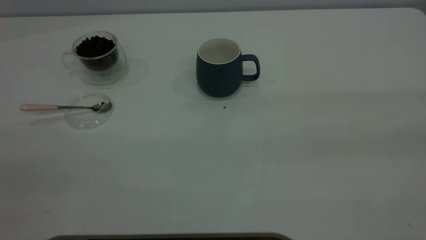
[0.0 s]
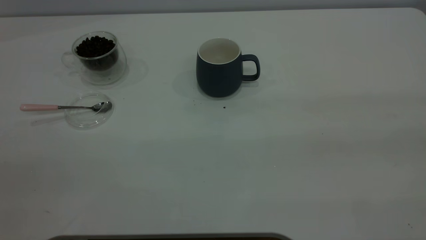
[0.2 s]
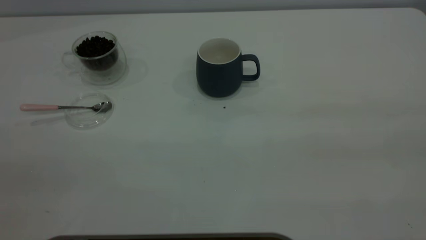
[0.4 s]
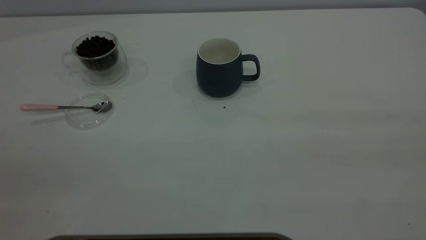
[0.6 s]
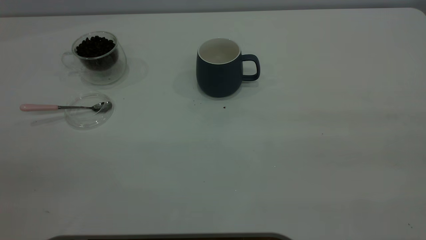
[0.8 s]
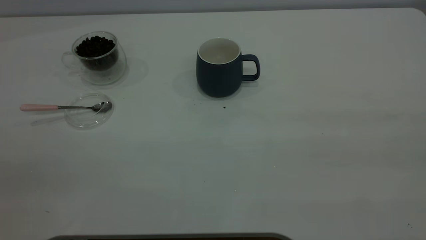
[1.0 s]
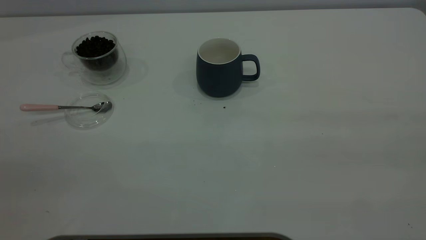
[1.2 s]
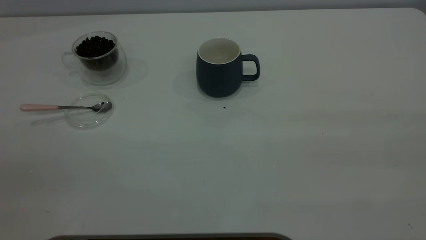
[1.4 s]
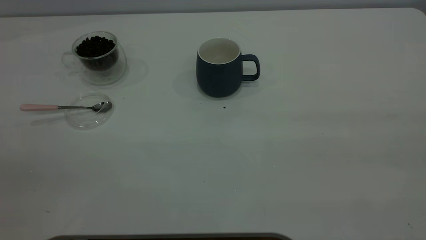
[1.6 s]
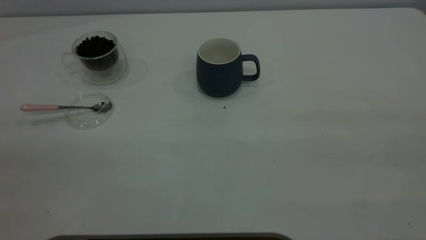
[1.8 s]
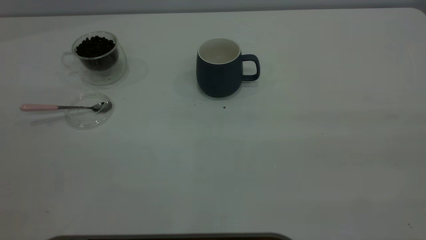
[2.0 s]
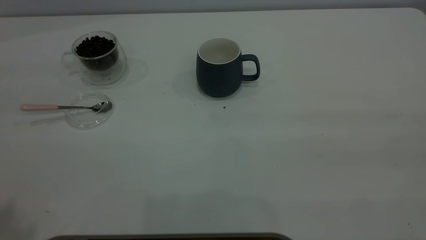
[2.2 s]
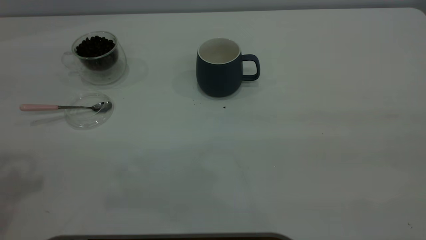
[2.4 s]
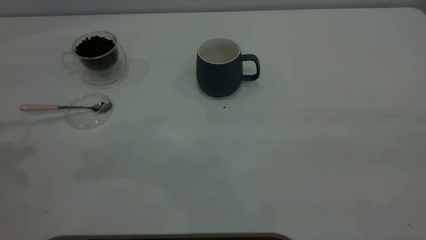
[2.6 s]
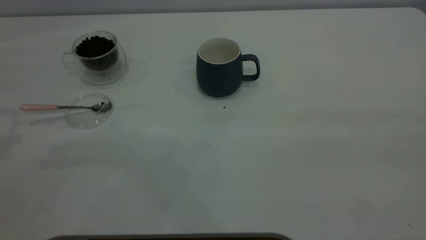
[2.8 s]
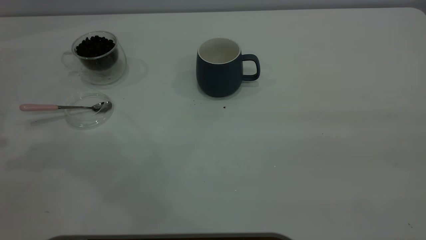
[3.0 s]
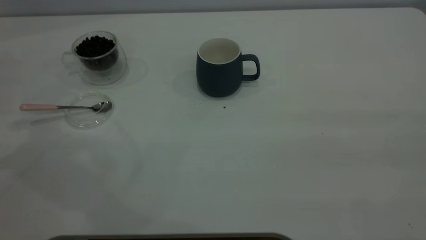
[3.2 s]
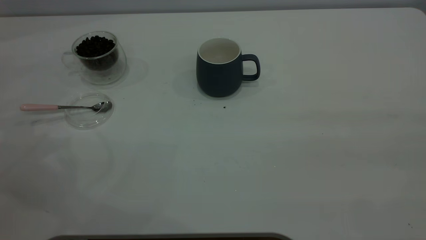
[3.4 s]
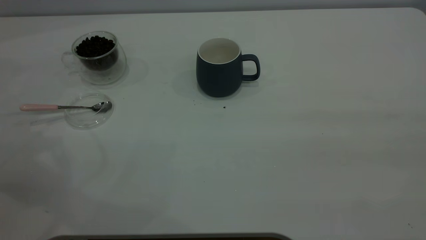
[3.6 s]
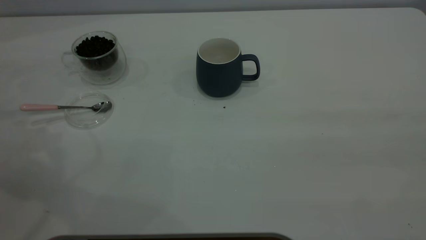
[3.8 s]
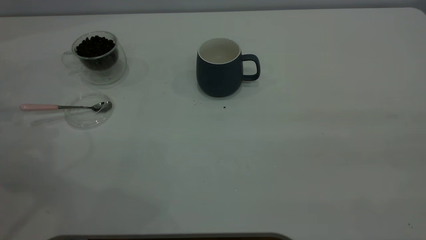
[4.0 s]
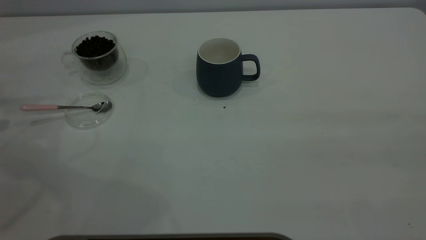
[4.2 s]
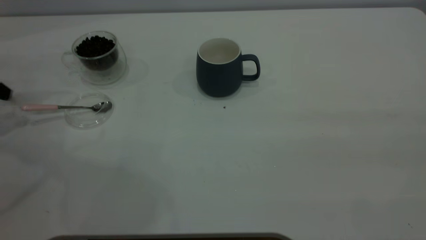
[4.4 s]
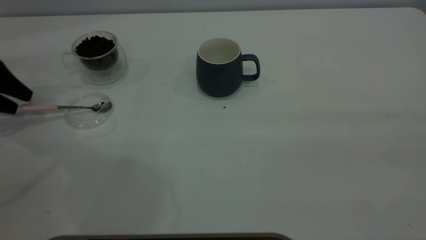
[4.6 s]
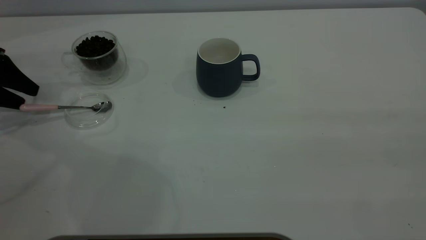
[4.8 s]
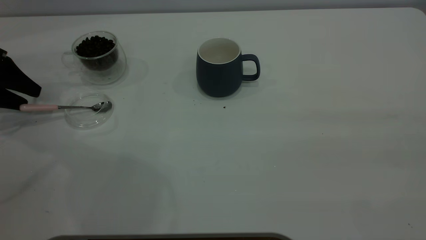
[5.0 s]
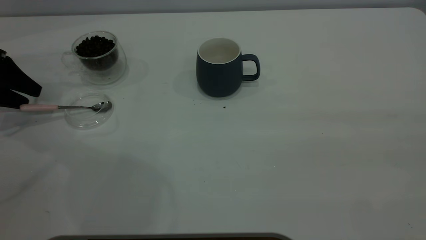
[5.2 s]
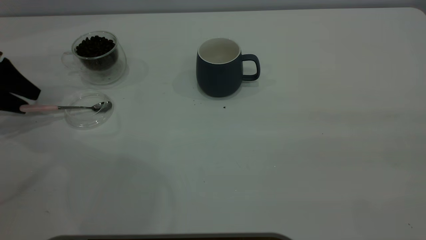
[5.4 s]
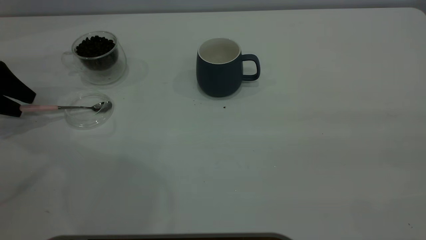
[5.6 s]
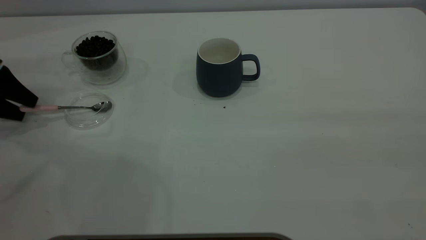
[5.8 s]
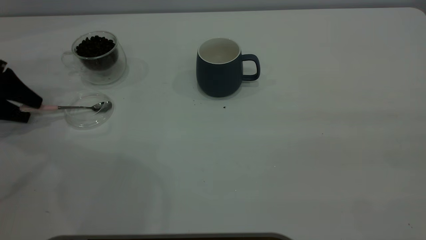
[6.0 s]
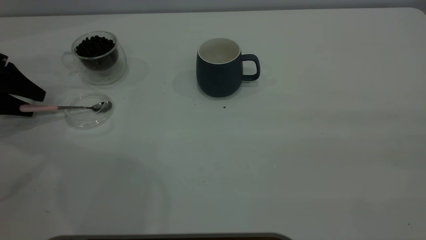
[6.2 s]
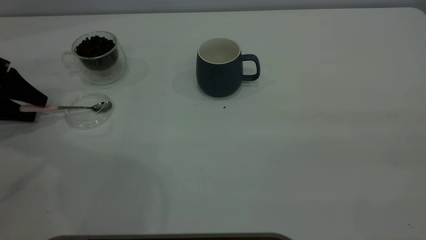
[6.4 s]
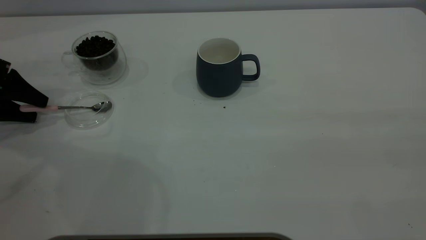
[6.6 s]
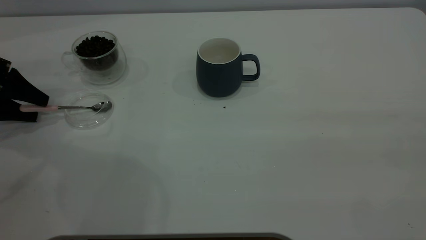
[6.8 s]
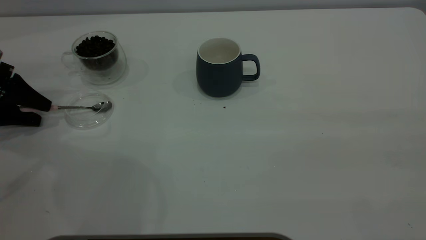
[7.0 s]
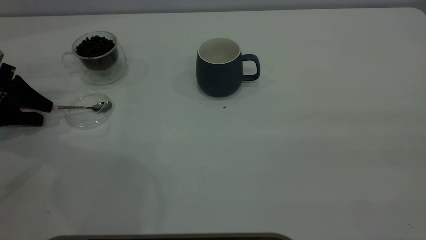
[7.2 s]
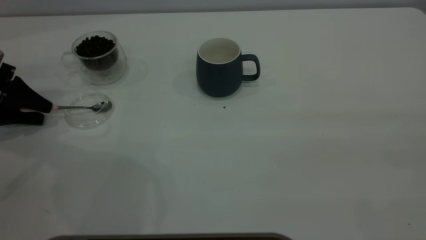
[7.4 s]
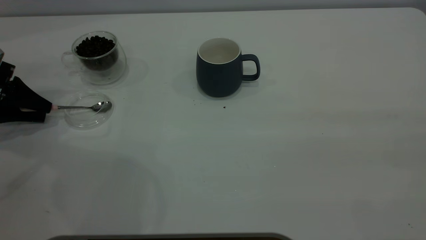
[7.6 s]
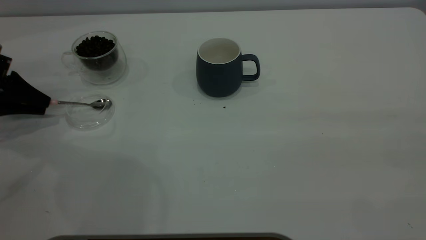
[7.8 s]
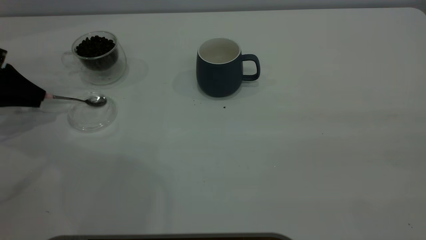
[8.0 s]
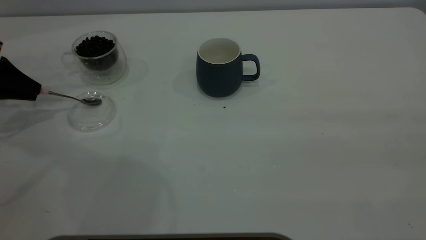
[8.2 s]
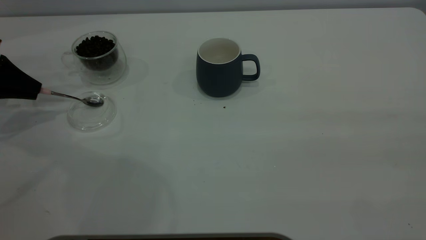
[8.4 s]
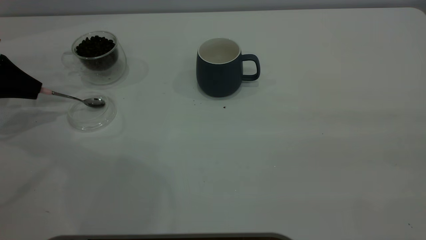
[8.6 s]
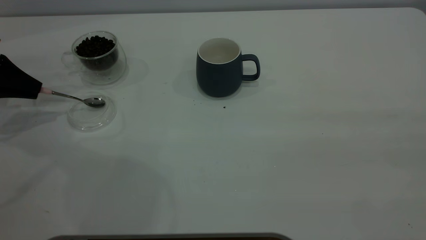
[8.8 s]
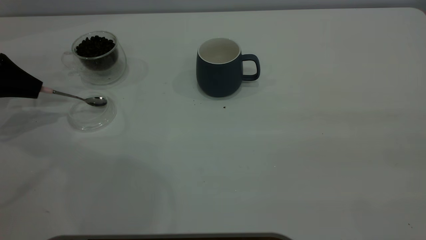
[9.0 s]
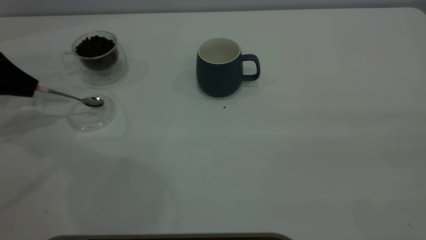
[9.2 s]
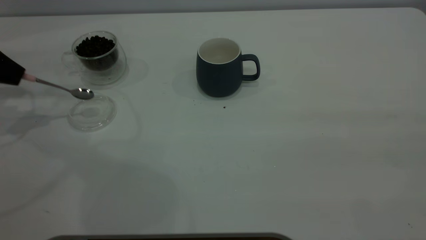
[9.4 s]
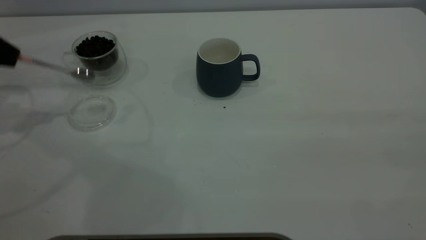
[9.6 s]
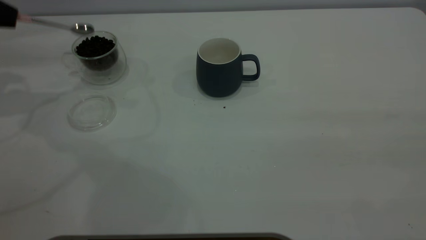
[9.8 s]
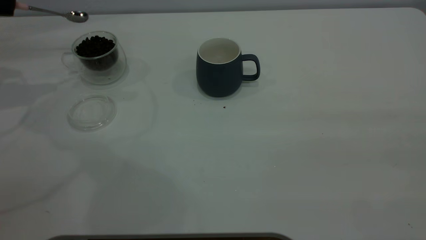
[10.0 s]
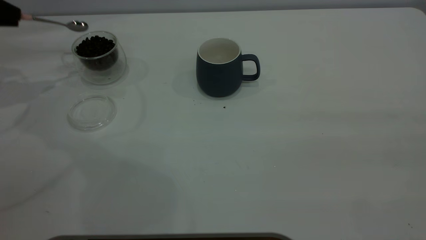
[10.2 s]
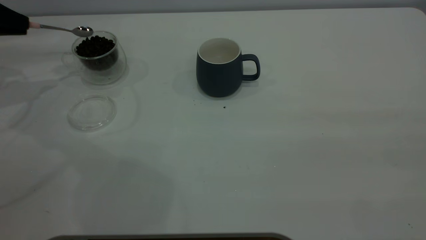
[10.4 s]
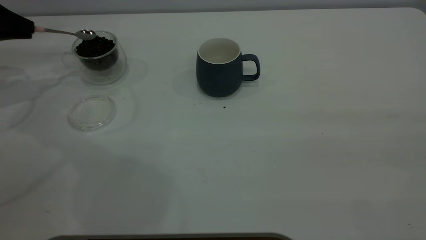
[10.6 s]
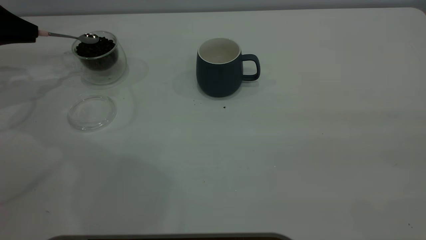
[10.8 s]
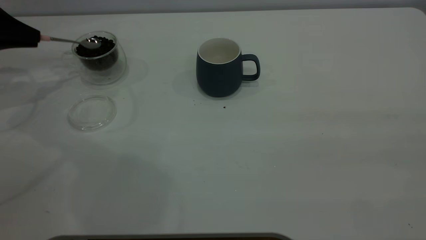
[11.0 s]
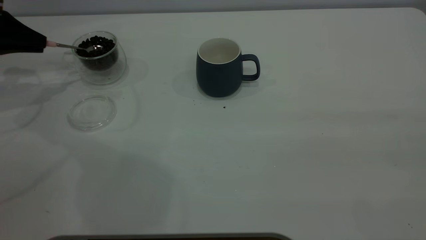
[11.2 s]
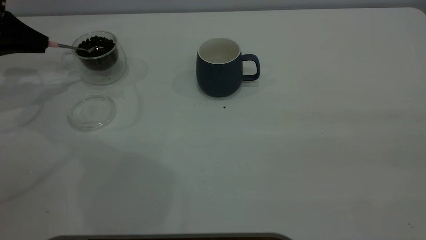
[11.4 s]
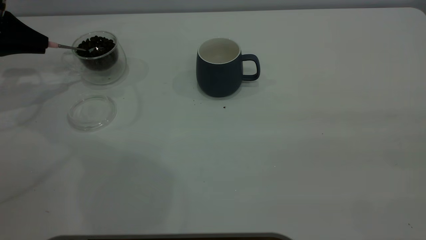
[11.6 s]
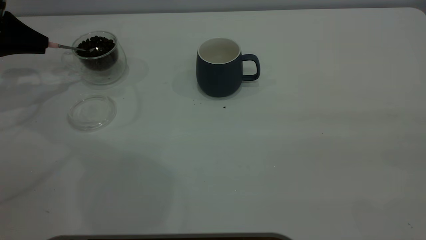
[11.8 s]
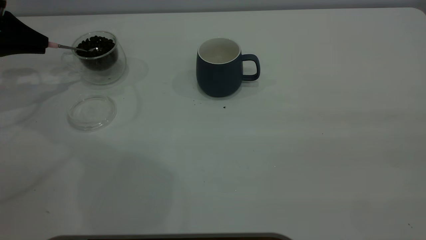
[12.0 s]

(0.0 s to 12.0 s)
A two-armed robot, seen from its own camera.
Task of the whole recording: the right gripper place the grey cup in the center of the table, the left gripper take the pink spoon from the cup lid and scoop out the coffee beans from the coffee cup and put them into the grey cup, the left gripper put the spoon back into the cup lid.
Step, 0.0 s - 9.4 s: Pick up the spoon.
4.4 s - 6.0 s: The grippers make only small movements.
6.0 s - 7.6 s: The left gripper closes up.
7.6 s - 9.0 s: The left gripper closes up.
9.0 s - 10.4 s: The left gripper travels upward by about 5 cm.
10.4 s - 12.0 s: There are only small adjustments of the grippers.

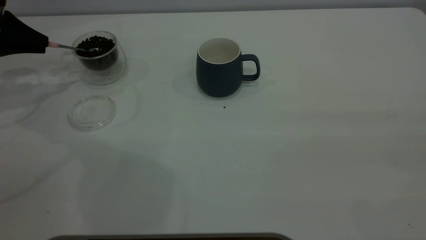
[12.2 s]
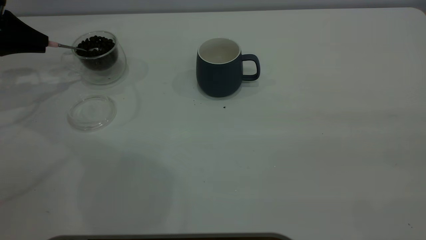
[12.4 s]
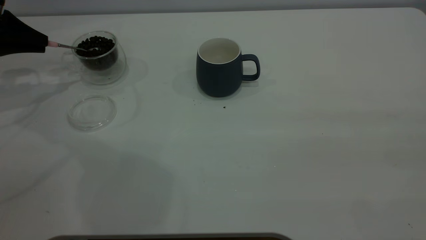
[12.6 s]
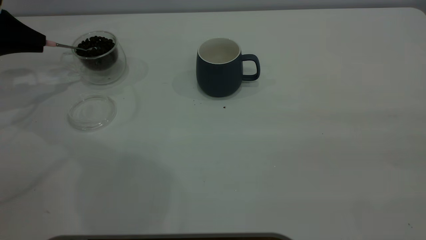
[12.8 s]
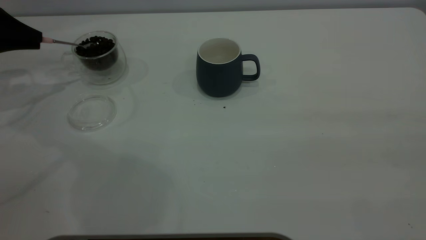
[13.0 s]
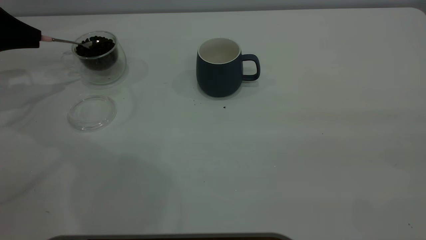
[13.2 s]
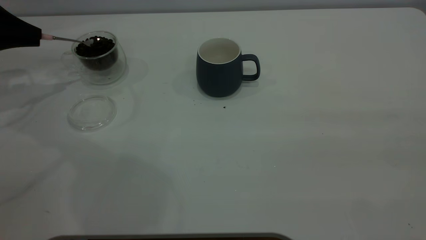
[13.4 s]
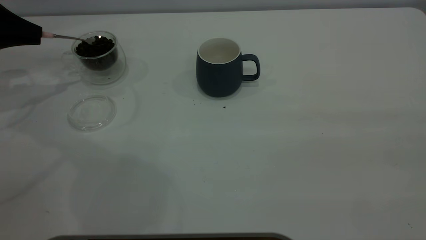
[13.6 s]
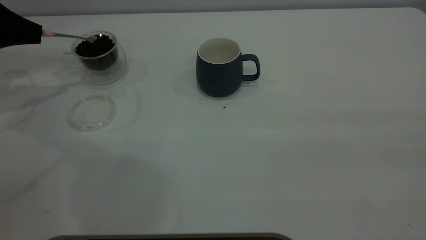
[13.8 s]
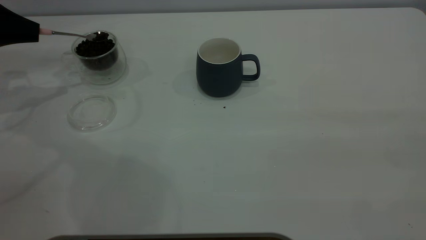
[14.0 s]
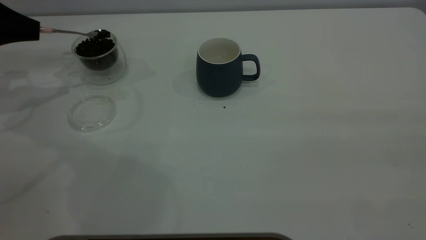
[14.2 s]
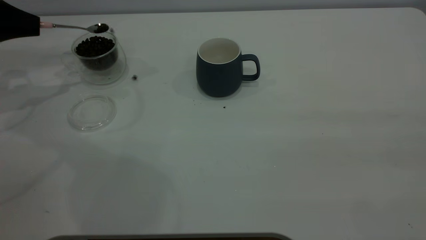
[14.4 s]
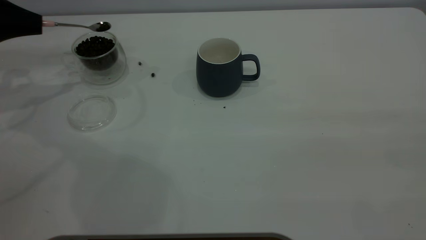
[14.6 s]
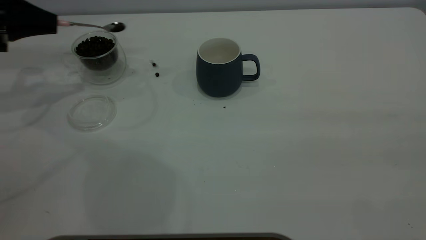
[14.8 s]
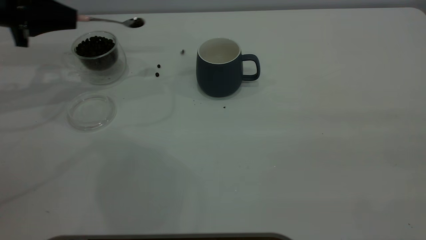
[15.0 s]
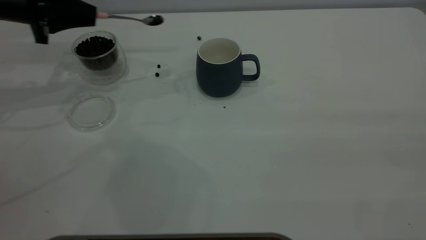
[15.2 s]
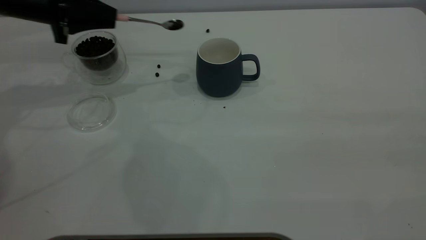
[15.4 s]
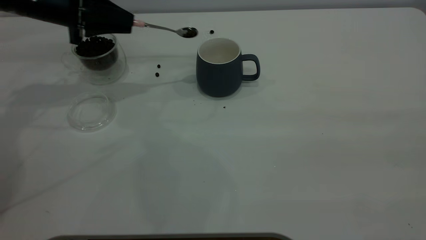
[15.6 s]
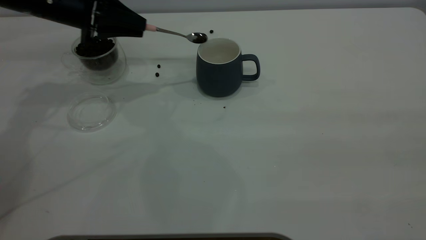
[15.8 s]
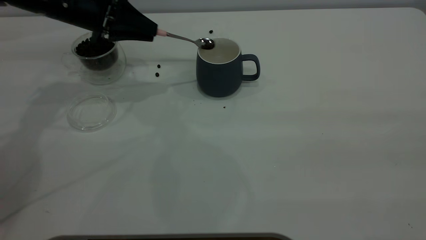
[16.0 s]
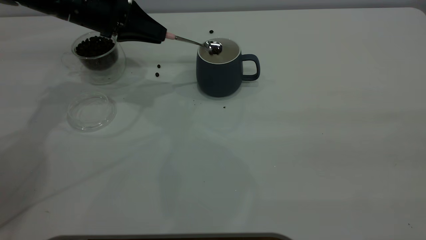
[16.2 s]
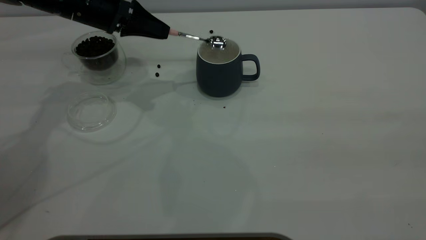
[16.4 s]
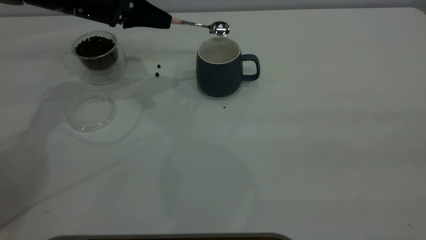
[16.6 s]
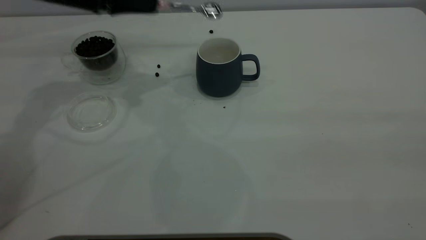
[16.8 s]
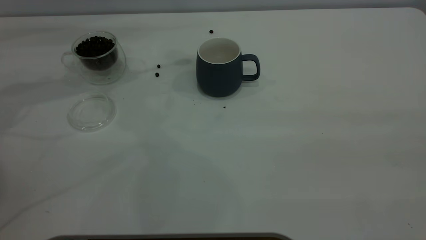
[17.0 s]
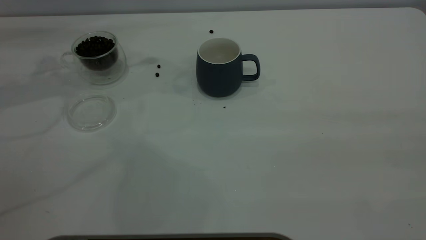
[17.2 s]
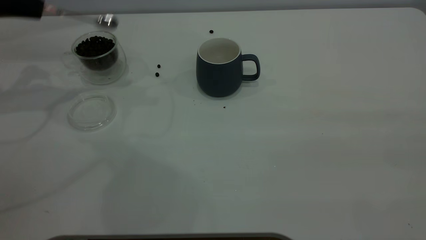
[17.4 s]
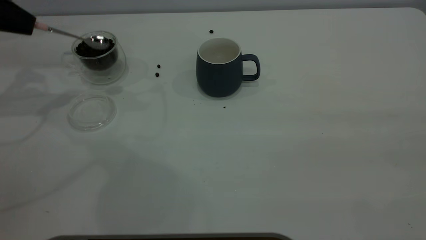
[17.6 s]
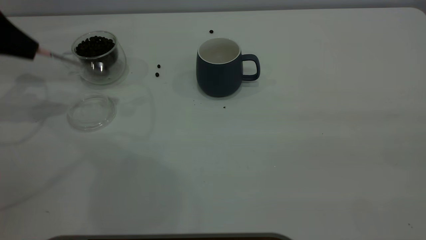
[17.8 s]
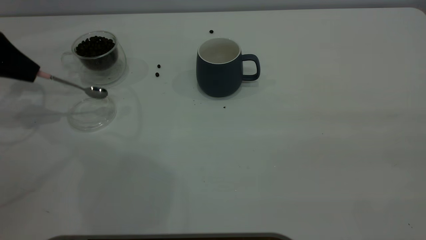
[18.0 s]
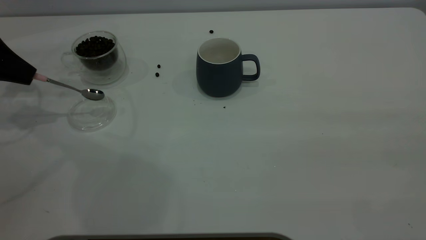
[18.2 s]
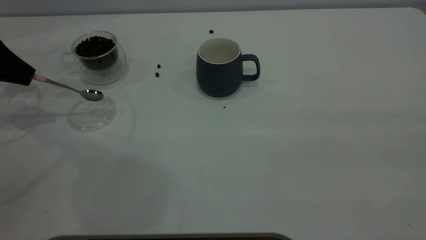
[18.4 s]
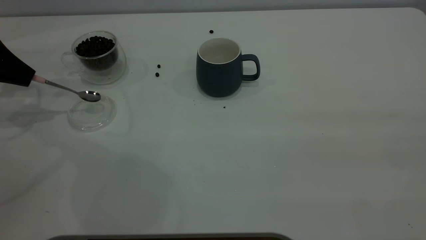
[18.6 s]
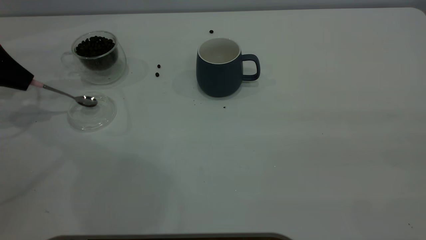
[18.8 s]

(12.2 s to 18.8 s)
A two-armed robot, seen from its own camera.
Task of the whole recording: the right gripper place the grey cup in the center of the table, the left gripper take the pink spoon from the cup lid and scoop out the coffee beans from the coffee cup and put them into the grey cup, the left gripper put the spoon back into the cup lid.
Step, 12.2 s - 16.6 s: Scoop a spoonful of beans into the cup.
12.2 s - 13.8 s: There are only small adjustments of the grippers.
13.8 s - 15.4 s: The left gripper is displaced to the right by some 15 cm.
15.4 s - 17.2 s: The left gripper shifts approximately 10 cm to the left and upward.
17.2 s - 18.8 s: The left gripper moves downward and to the left, approximately 10 cm.
